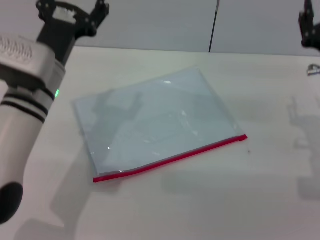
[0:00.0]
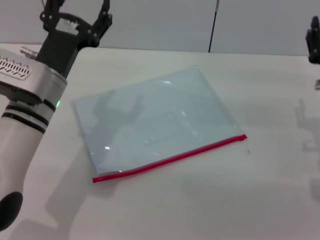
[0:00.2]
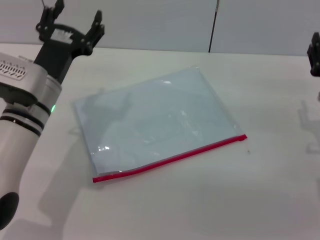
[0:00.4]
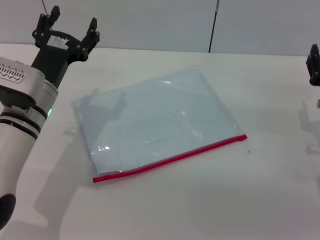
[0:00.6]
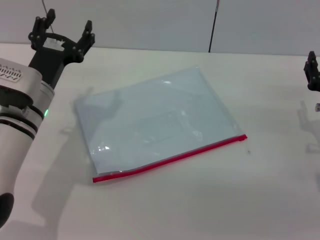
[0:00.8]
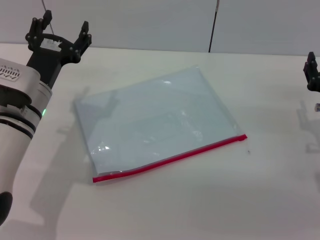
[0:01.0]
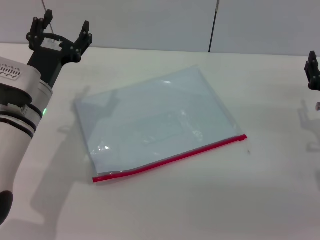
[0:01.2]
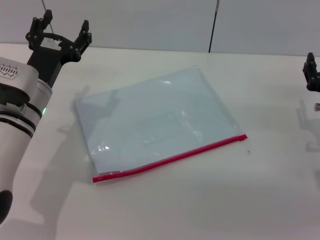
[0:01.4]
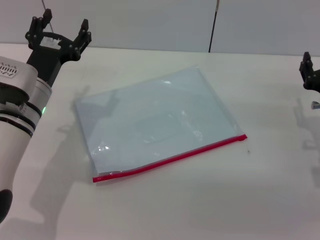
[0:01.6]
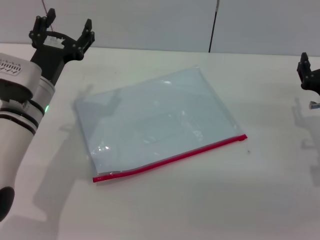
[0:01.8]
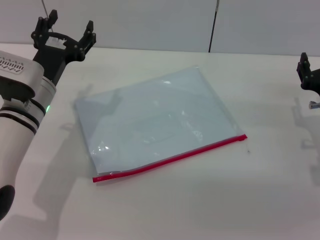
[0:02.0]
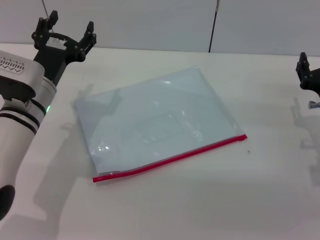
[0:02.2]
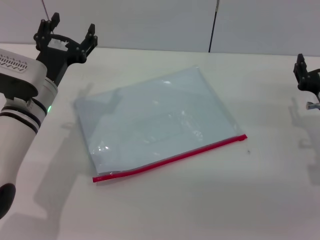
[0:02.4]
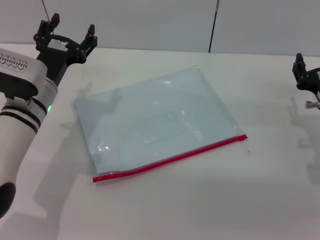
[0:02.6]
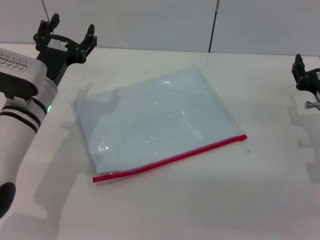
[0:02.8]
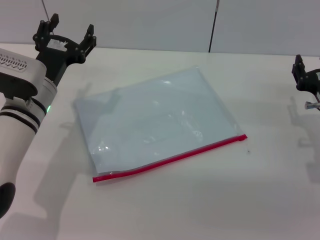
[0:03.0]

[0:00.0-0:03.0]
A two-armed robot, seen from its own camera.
0:00.0 to 0:01.6: The left gripper moves about 5 cm. Meanwhile the right gripper goes approximately 5 cm downward.
0:01.6 to 0:03.0: Both grippers stay put.
